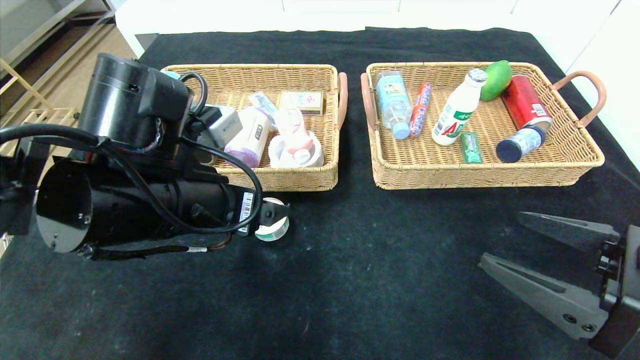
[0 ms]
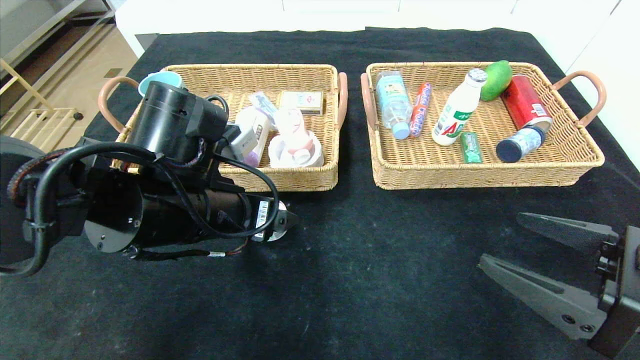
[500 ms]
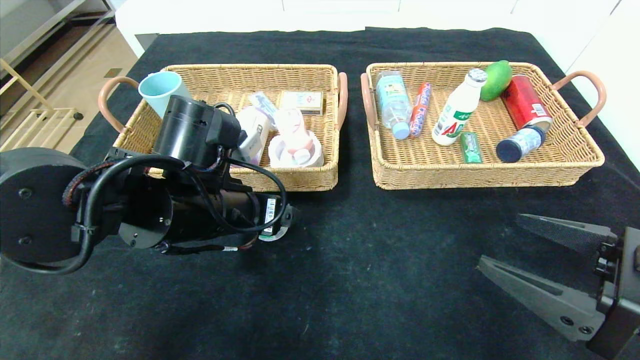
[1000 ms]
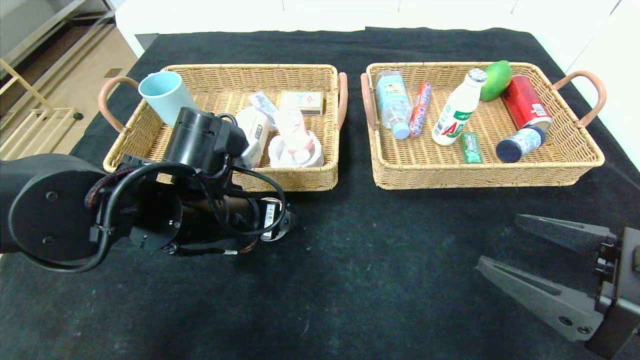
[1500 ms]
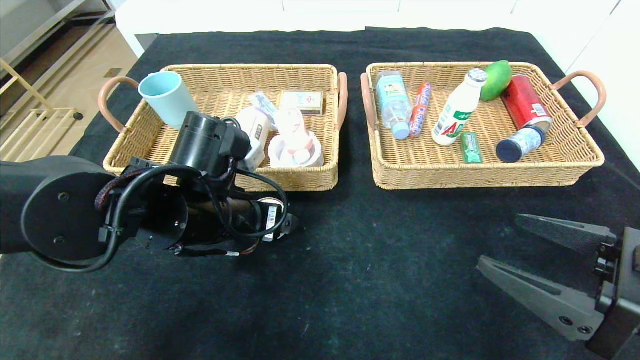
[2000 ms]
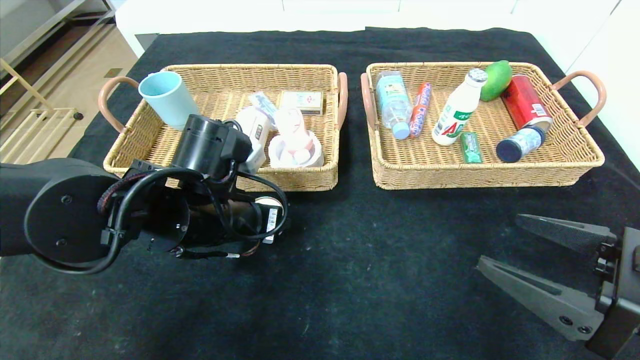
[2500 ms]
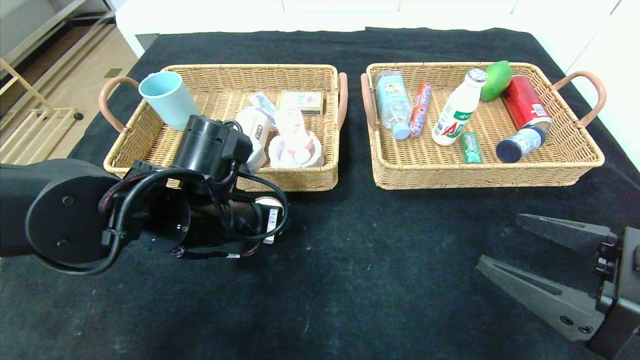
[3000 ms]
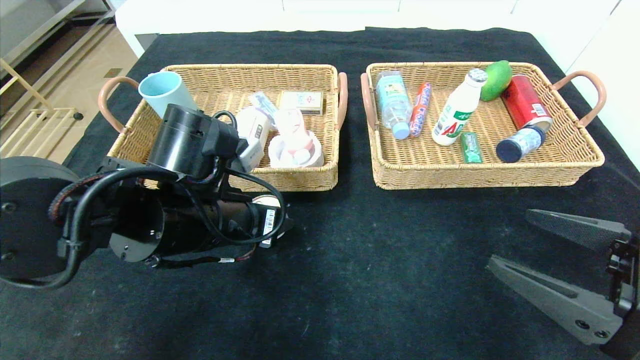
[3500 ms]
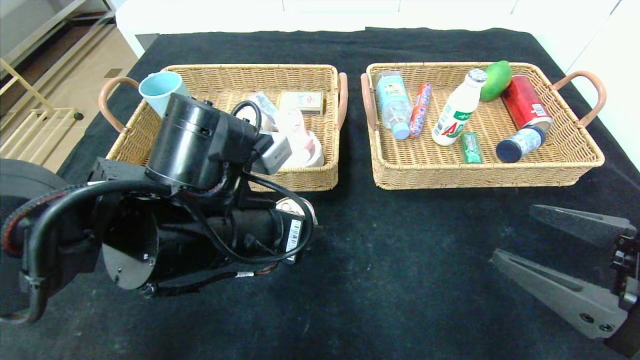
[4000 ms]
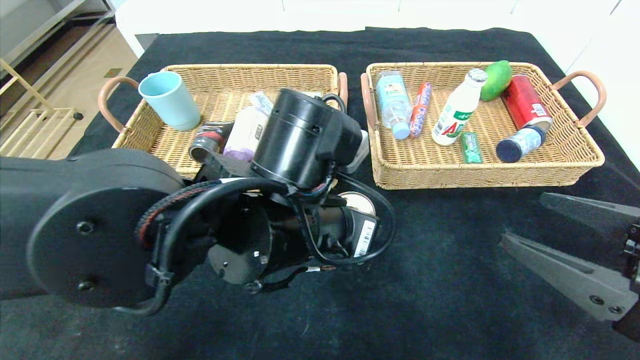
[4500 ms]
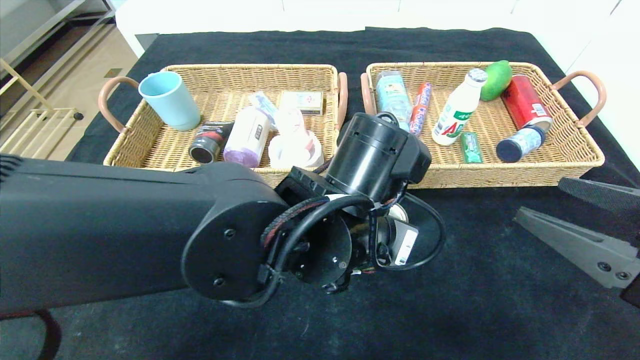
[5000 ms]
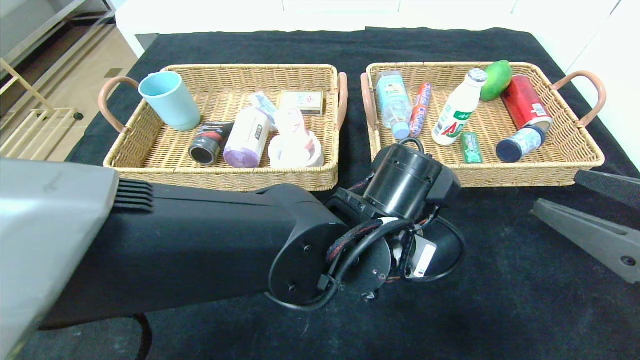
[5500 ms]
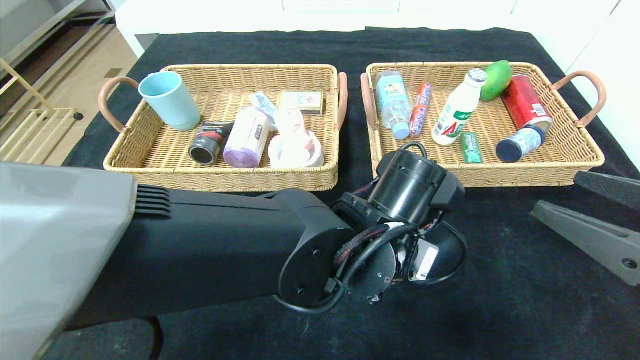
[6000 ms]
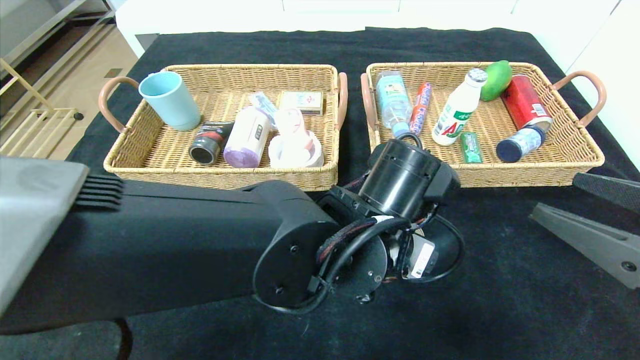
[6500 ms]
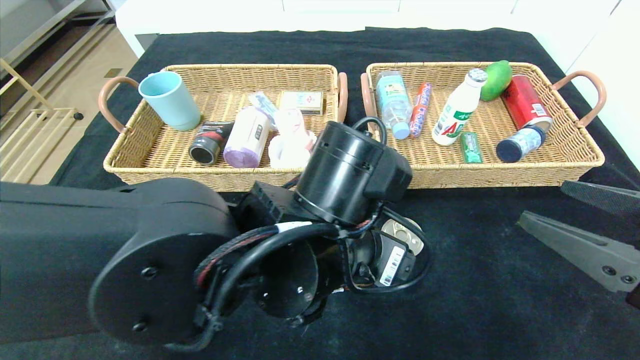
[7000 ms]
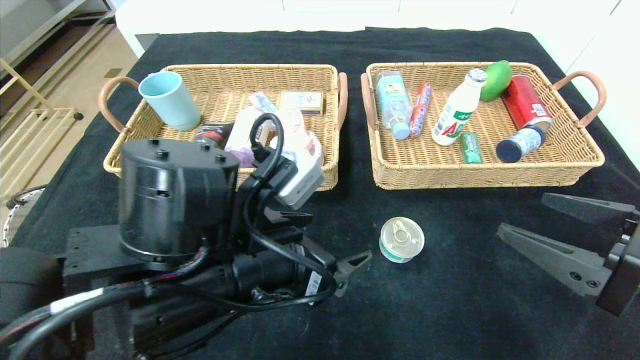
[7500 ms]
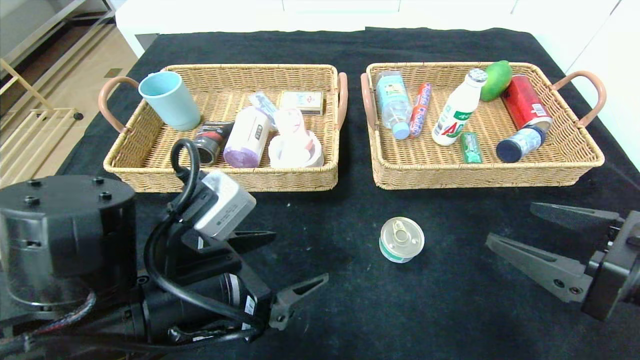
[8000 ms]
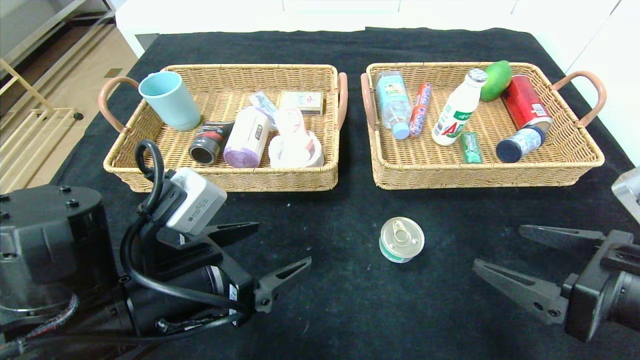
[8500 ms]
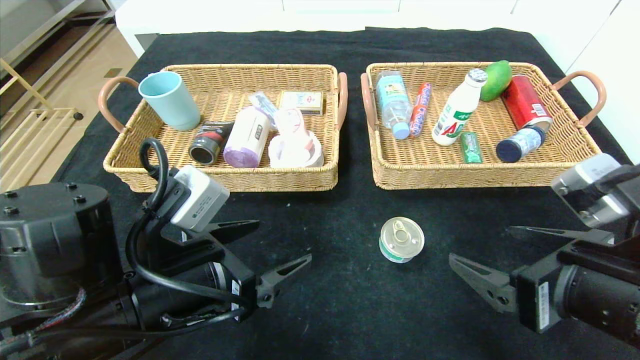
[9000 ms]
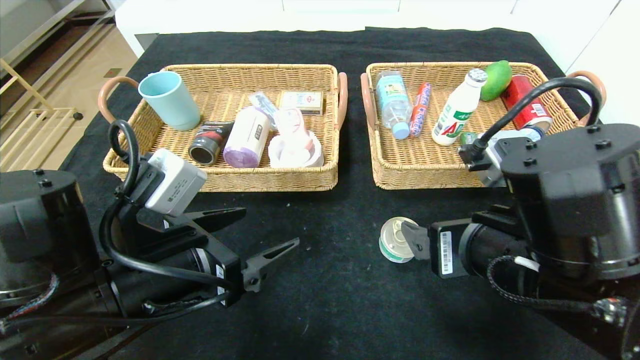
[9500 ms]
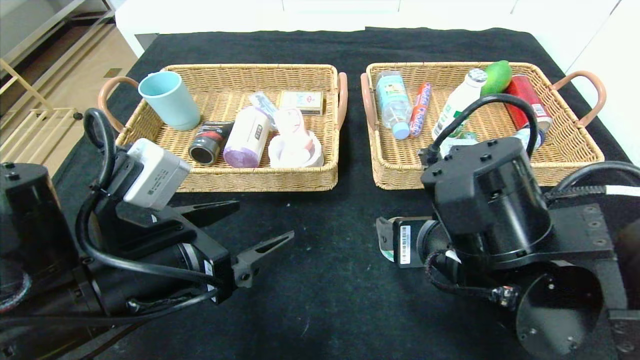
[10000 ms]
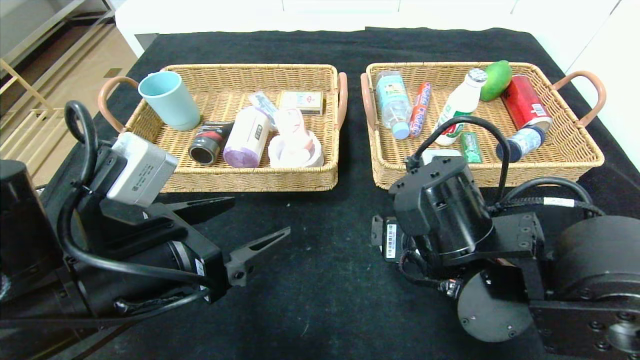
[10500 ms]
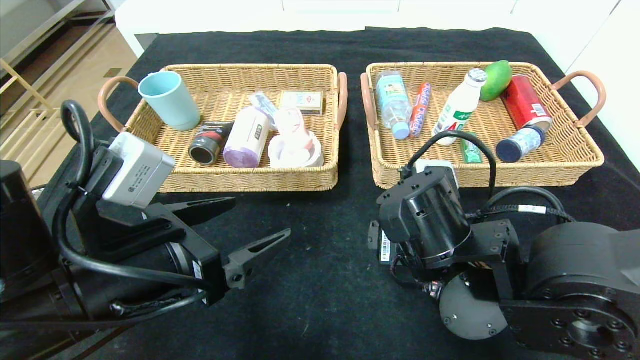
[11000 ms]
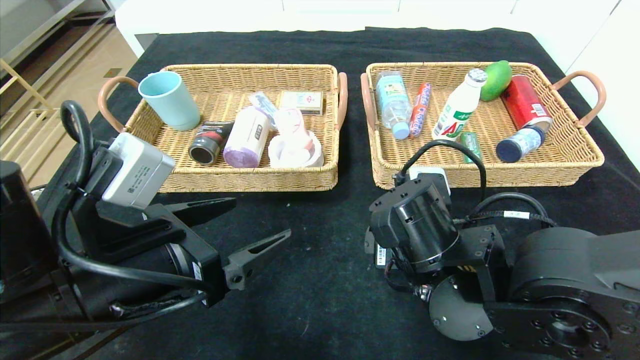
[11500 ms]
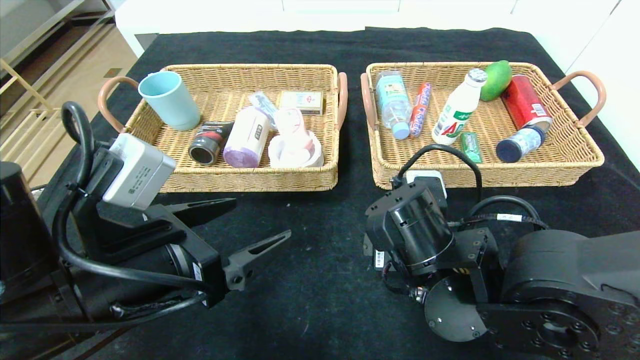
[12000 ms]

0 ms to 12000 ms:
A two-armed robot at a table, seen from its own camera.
Step, 0 ms to 7000 ms: Place the can in the center of the table.
0 ms to 2000 ms: The left gripper changes place by approximately 5 cm.
2000 ms to 4000 ms: The left gripper travels backward by some 5 cm, and closes its fingers.
4000 ms to 6000 ms: The left gripper heads to the right, covering approximately 15 cm.
6000 ms to 8000 ms: The left gripper is displaced to the left by approximately 20 cm, and opens.
8000 ms to 10000 ms: The right gripper goes about 15 cm to the left.
10000 ms to 12000 ms: The right gripper changes place by approximately 5 cm.

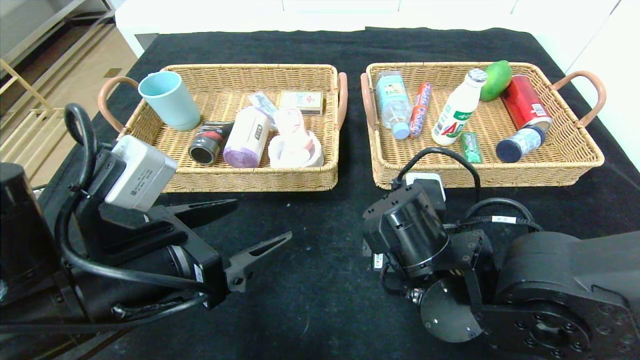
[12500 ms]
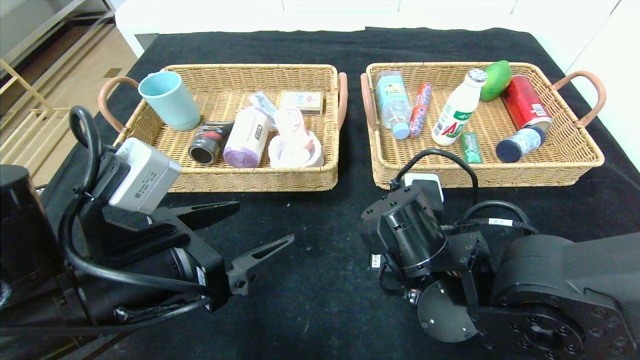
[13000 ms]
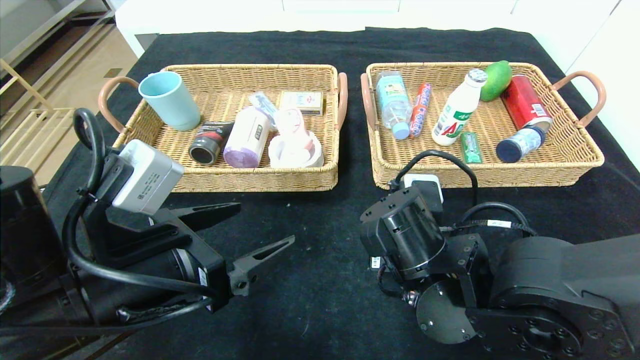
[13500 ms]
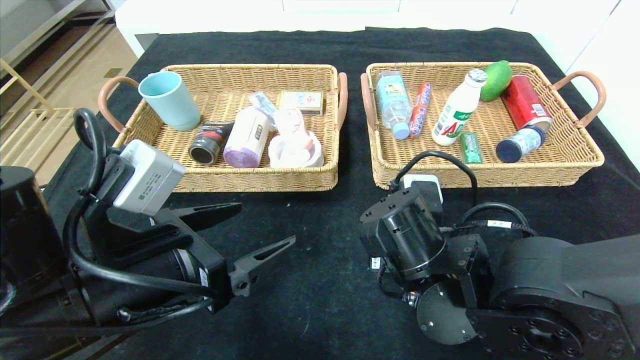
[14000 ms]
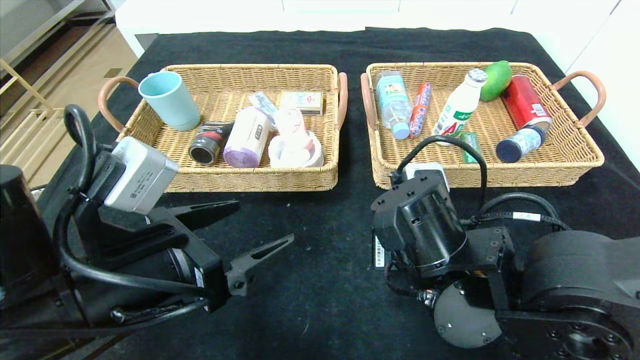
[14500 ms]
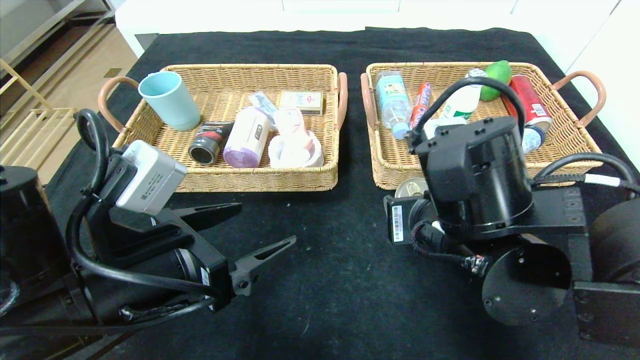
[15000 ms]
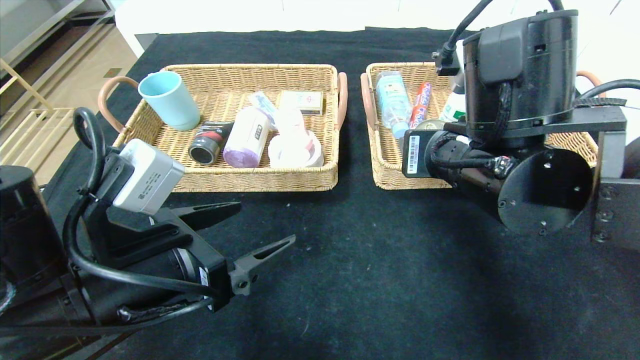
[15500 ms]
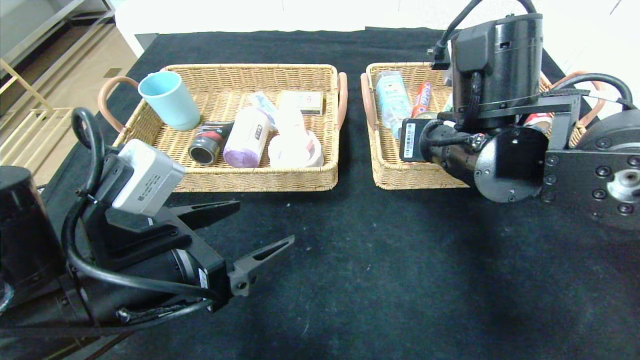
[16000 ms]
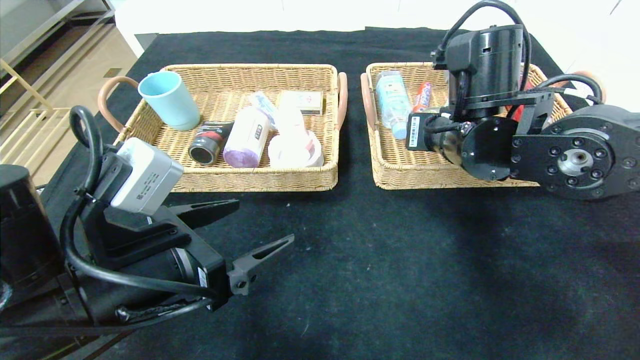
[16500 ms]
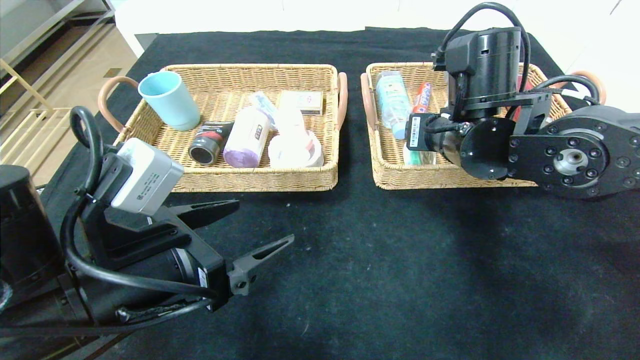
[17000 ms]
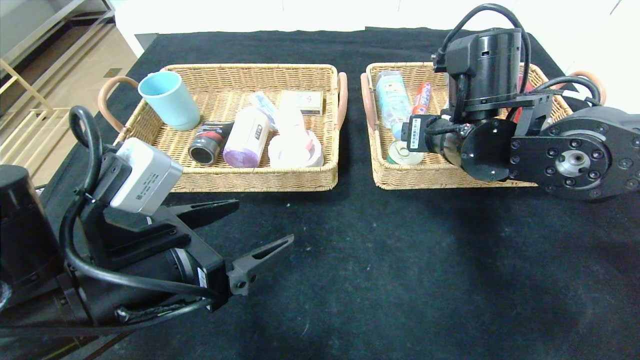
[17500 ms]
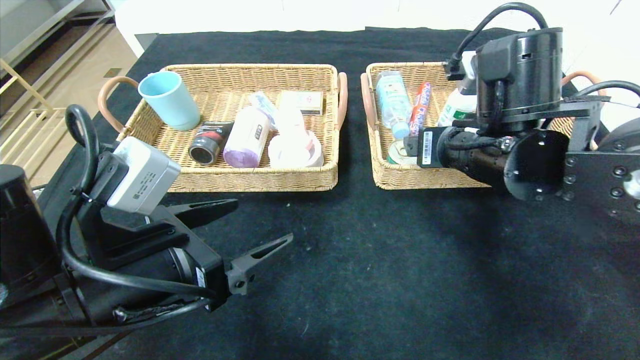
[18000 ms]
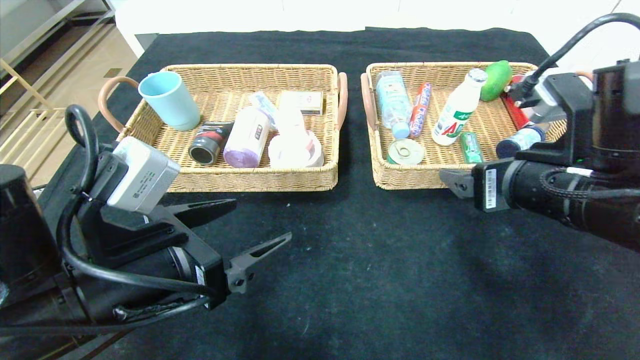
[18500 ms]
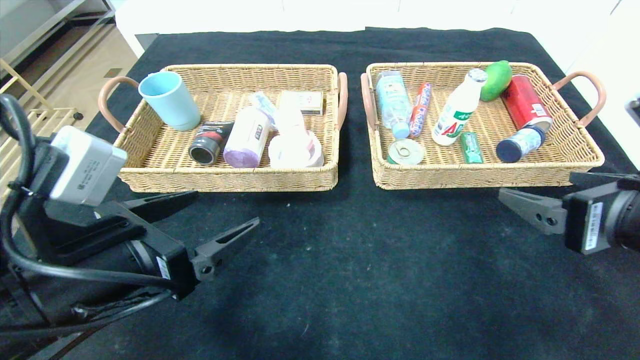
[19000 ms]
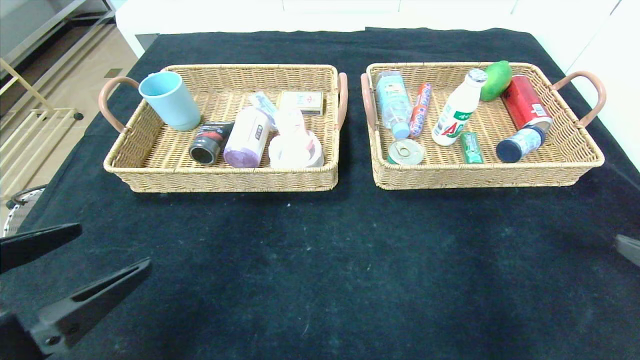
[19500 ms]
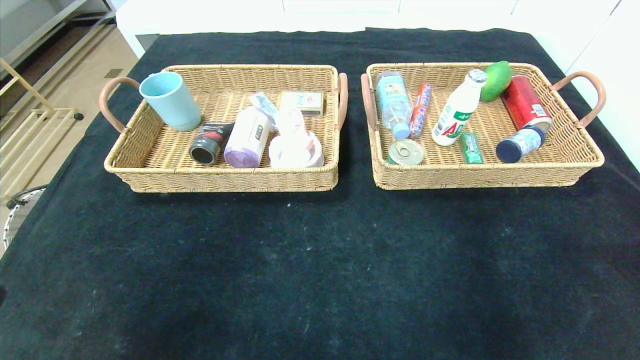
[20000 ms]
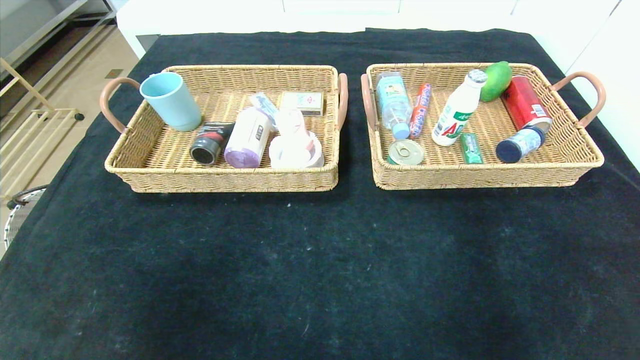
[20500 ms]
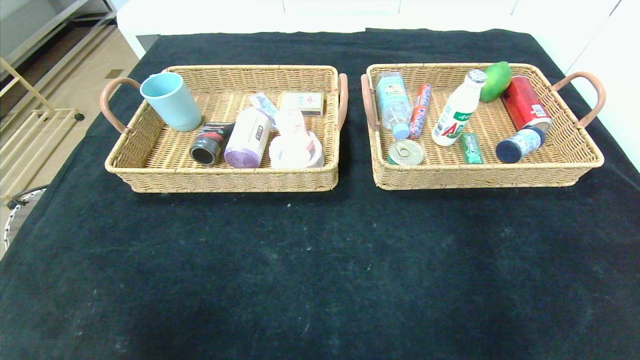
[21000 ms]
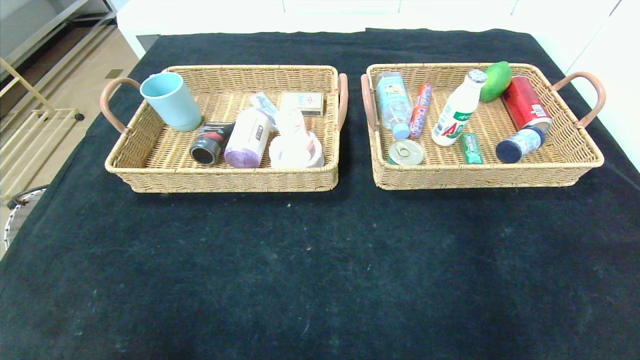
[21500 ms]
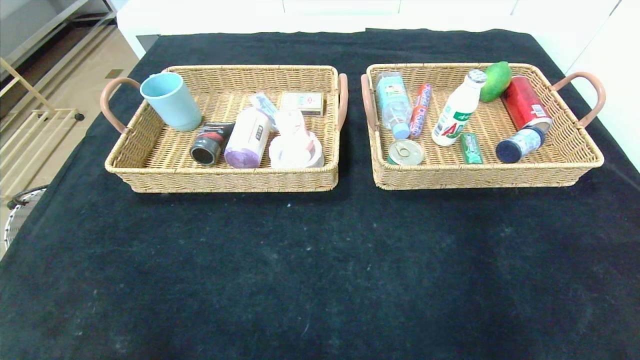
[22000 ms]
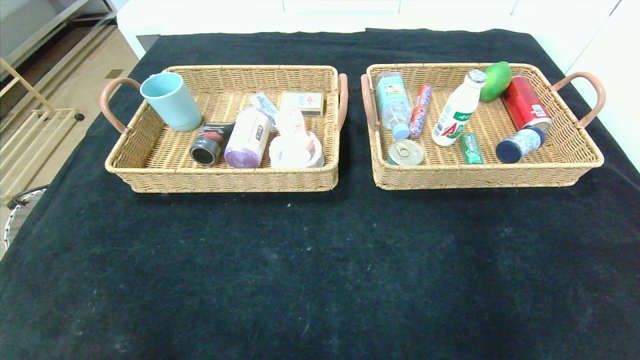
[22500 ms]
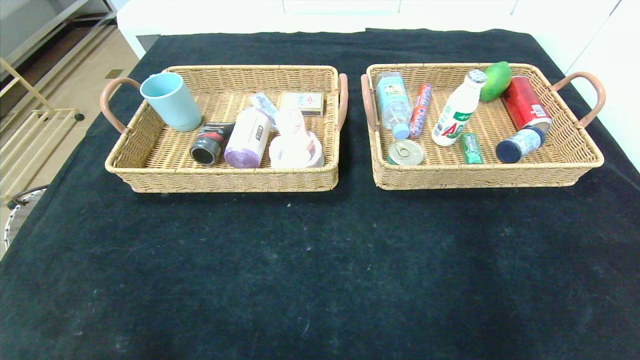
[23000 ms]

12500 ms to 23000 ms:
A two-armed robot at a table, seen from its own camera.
Step, 12500 ms to 17500 ms: Grasp the can and put it in the right basket.
12500 ms to 14500 ms: The right gripper closes up.
14500 ms to 16500 ms: The right gripper is displaced forward and upward by about 15 cm.
16500 ms to 19000 ms: The right gripper heads backward and to the right, covering some 20 cm, and opens.
19000 ms to 21000 ms: The left gripper goes some 25 cm backward and to the left, while the right gripper moves backward and to the right, some 25 cm.
